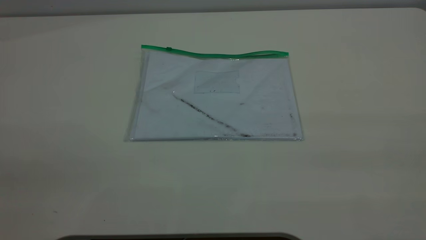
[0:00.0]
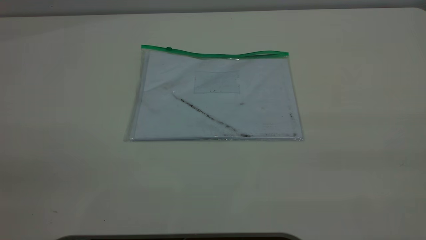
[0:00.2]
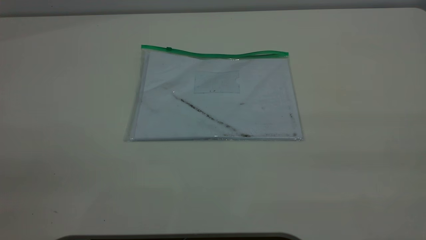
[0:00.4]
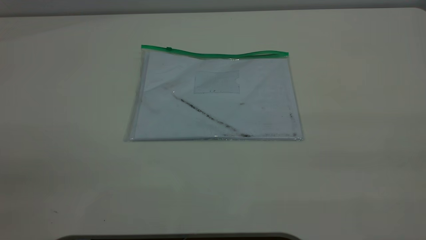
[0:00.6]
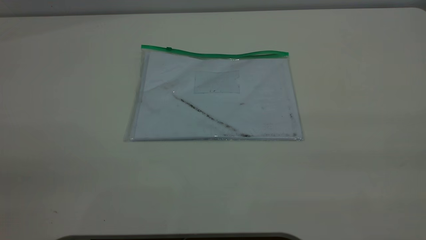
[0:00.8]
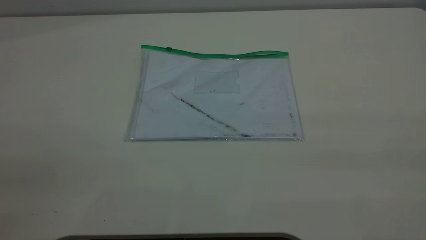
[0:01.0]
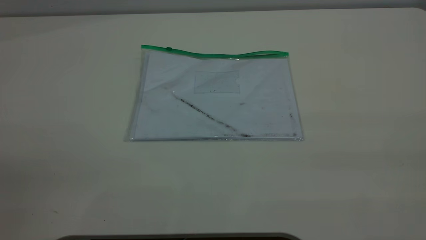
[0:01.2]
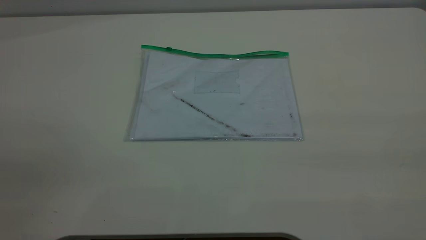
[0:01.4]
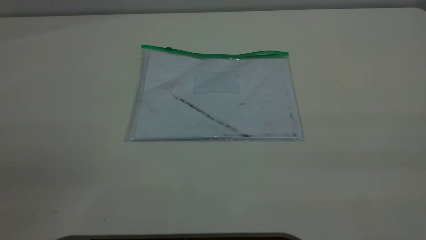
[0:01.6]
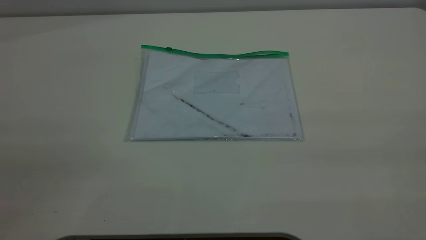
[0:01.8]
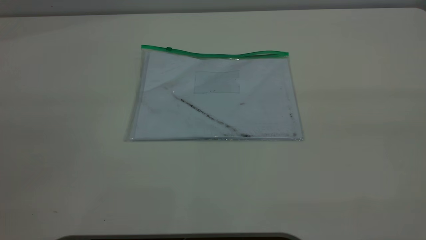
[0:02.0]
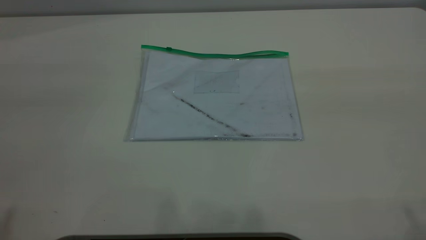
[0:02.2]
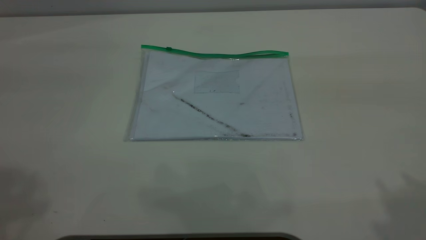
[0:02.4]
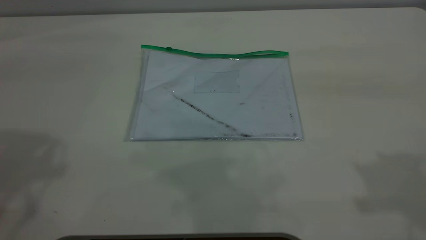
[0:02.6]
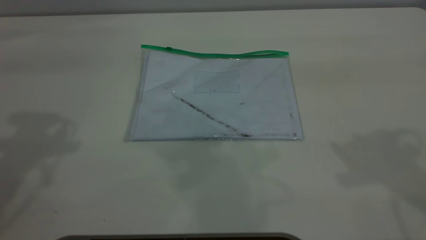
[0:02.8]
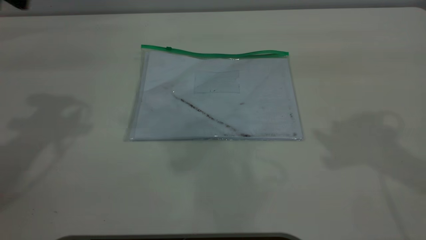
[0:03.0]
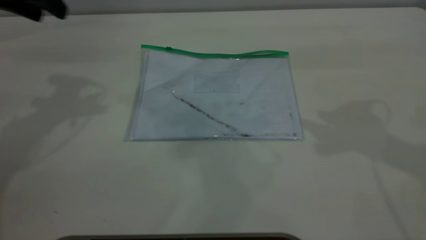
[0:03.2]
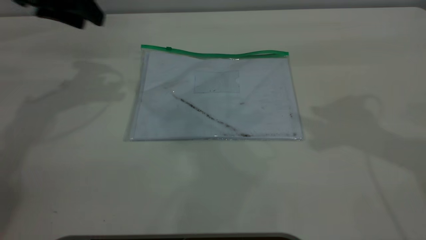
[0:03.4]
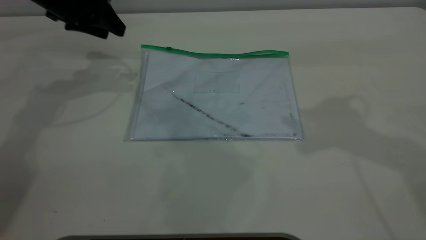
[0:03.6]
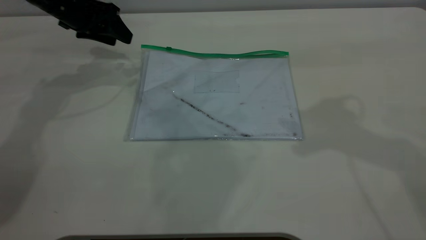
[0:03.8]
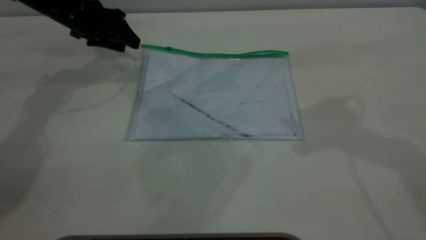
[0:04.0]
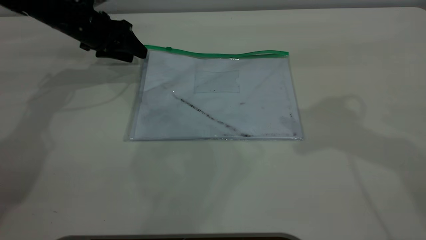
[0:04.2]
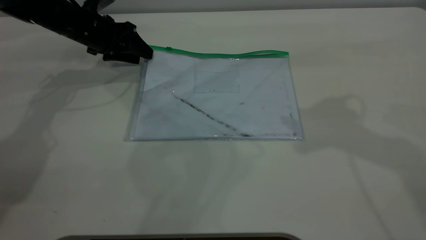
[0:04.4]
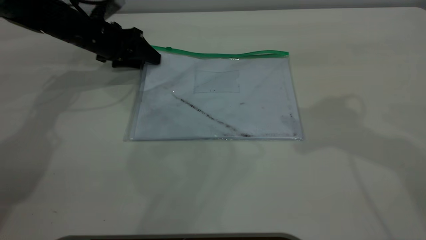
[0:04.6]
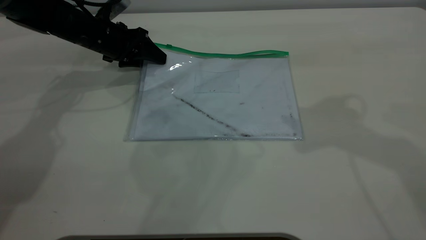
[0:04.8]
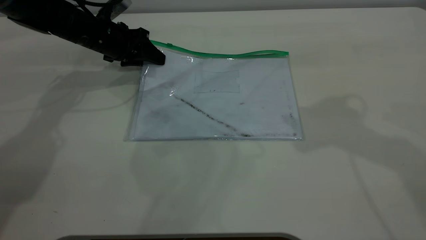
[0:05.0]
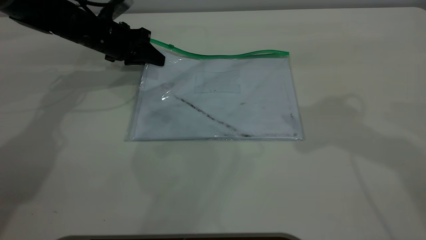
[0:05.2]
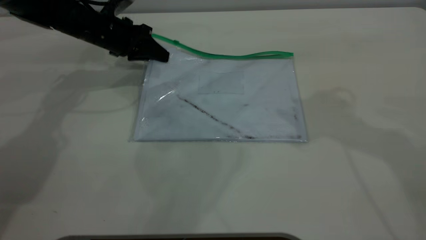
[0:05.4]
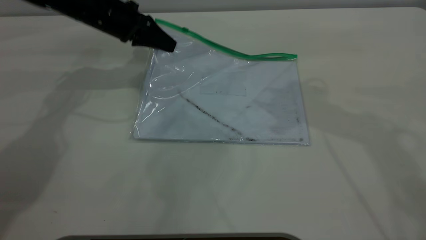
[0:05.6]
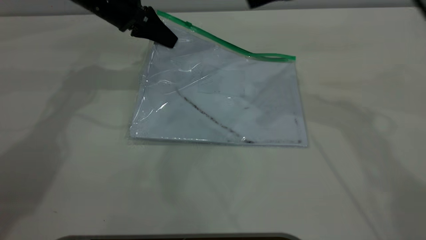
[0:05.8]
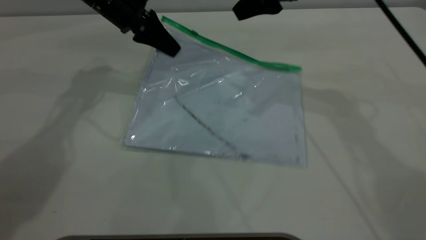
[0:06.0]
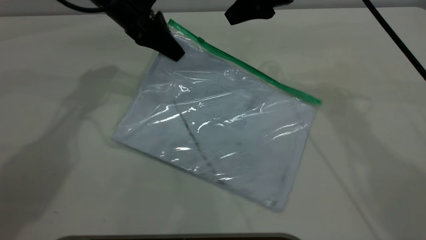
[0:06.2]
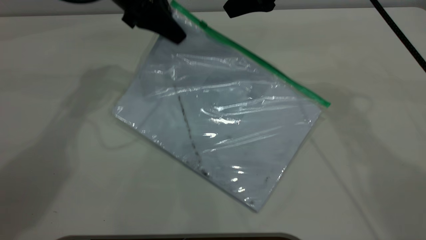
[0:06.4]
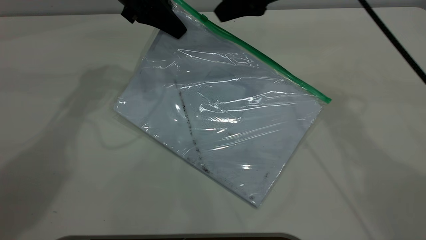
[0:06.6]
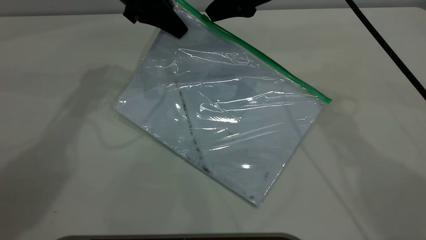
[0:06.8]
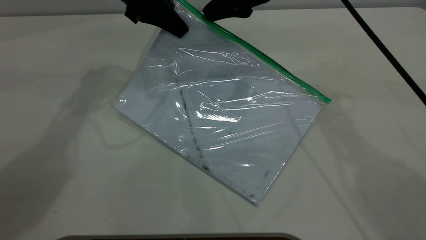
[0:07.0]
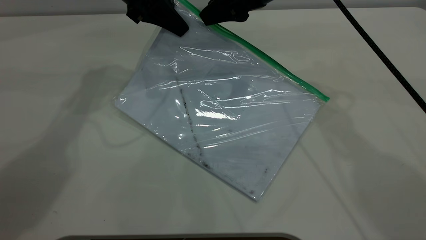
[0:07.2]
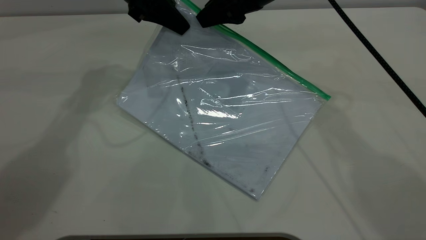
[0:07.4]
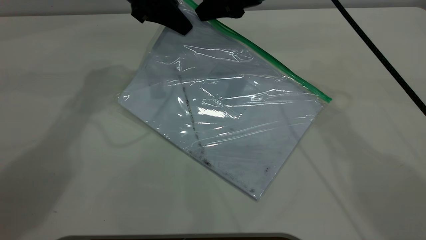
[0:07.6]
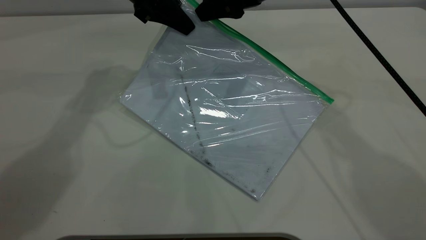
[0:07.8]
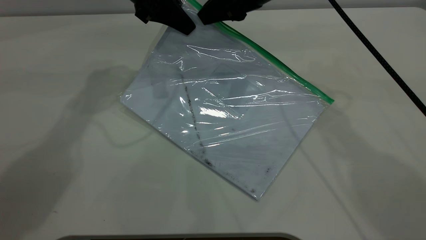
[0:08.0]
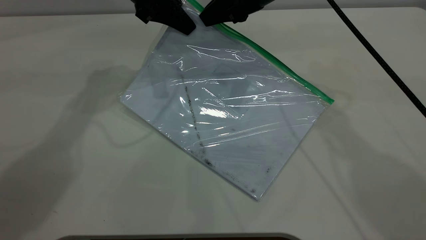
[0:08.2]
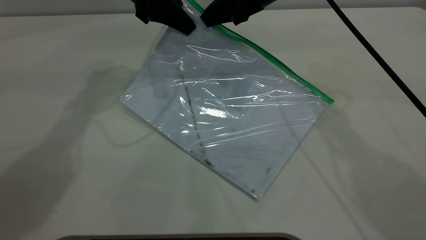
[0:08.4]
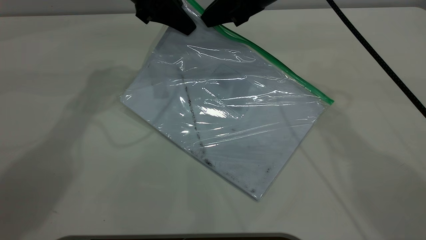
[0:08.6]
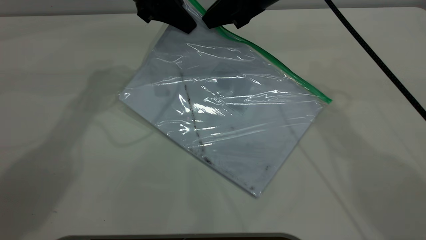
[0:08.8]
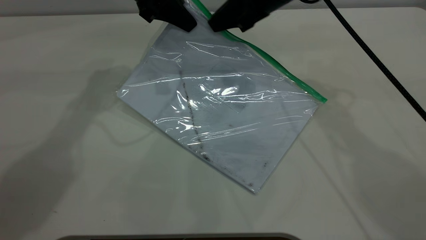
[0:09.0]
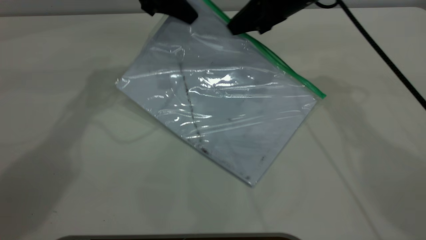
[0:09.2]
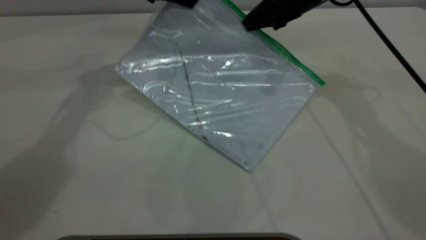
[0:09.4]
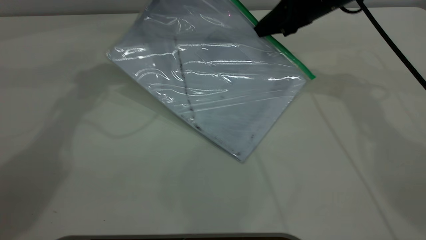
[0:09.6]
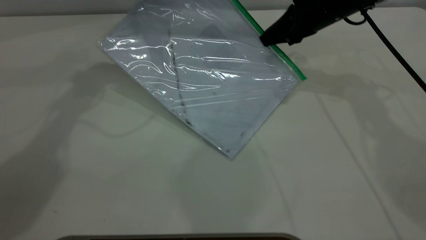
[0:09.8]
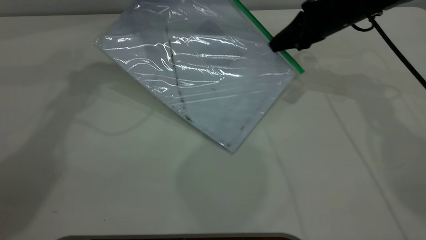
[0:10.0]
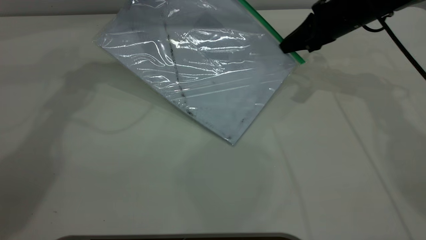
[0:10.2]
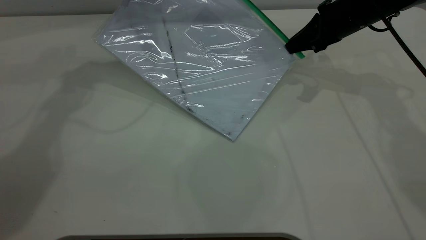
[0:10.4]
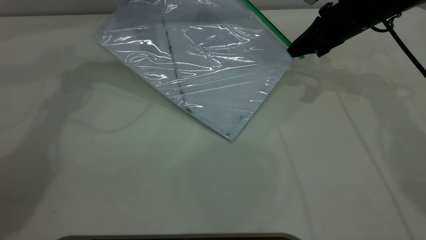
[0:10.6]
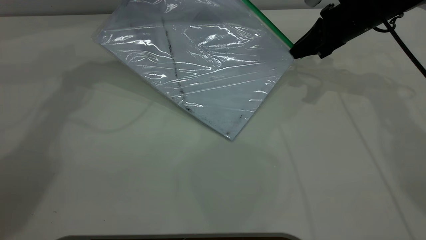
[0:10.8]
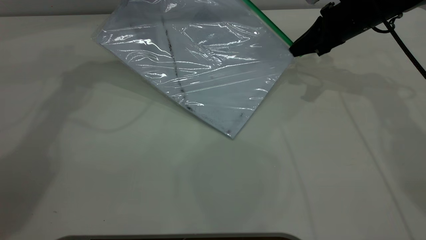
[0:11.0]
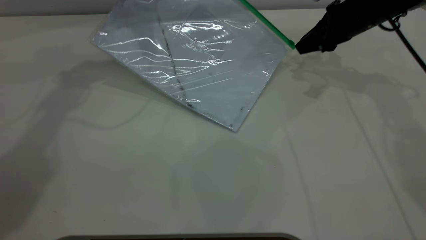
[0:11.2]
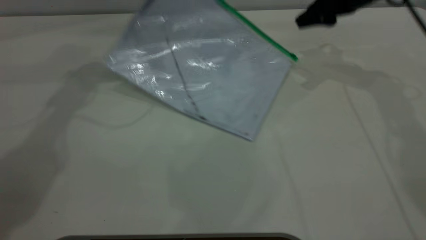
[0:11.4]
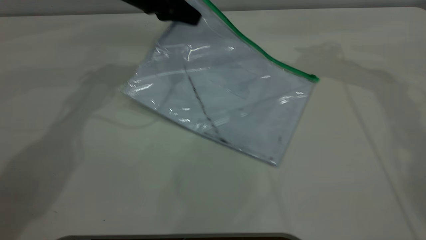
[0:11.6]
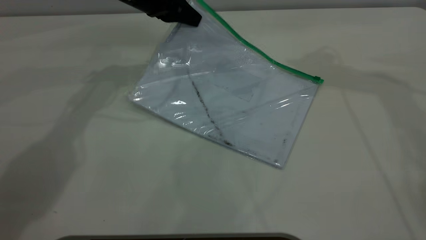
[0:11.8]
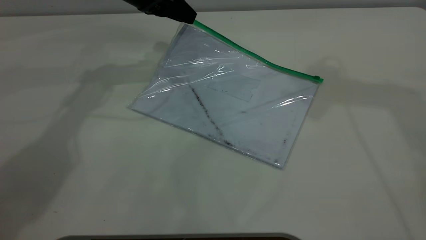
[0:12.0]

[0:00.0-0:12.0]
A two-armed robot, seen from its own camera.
Step, 0:00.0 to 0:05.6: Pick up the transparent plastic bag with the left gripper.
Step, 0:05.8 to 0:11.2: Pulling up the zipper on the transparent plastic bag with the right gripper to close it.
0:00.0 to 0:01.6: Both grippers stay put.
0:03.0 to 0:04.4: The left gripper moves downward and forward, about 25 cm.
0:04.4 to 0:06.0: The left gripper heads to the right and upward, covering roughly 10 cm, and closes up. The right gripper travels forward, to the left and downward by some 15 cm.
0:06.0 to 0:07.6: The left gripper ends up some 5 cm from where it was.
0:07.6 to 0:09.0: The right gripper closes.
0:09.0 to 0:10.4: The left gripper shifts by approximately 5 cm. Meanwhile the right gripper moves to the right and downward, some 15 cm.
0:10.4 to 0:12.0: The left gripper goes about 5 cm downward, and opens its fingers, while the right gripper moves upward, about 25 cm, and opens up.
